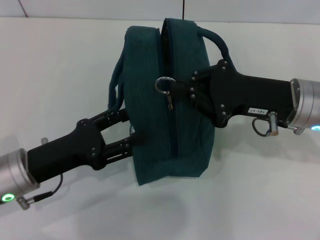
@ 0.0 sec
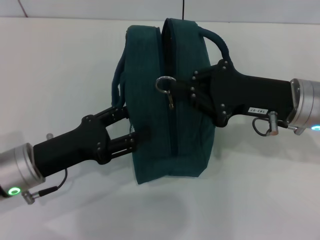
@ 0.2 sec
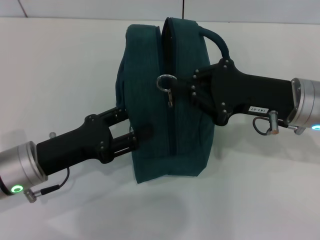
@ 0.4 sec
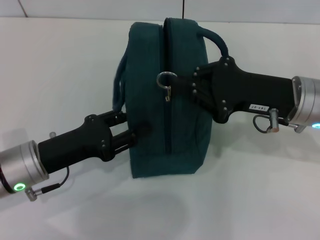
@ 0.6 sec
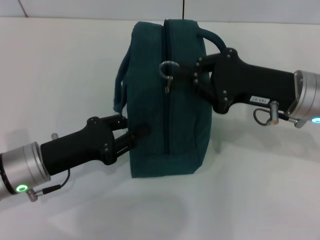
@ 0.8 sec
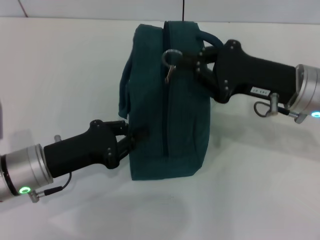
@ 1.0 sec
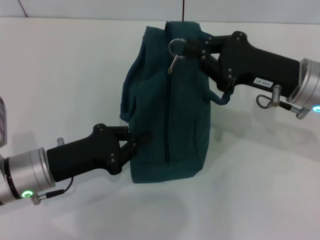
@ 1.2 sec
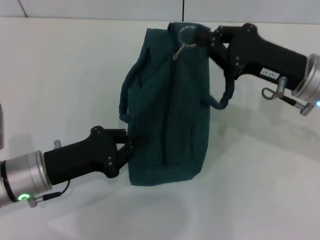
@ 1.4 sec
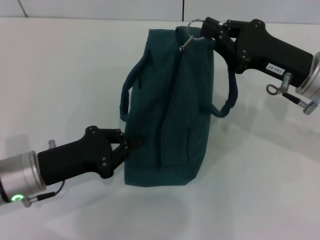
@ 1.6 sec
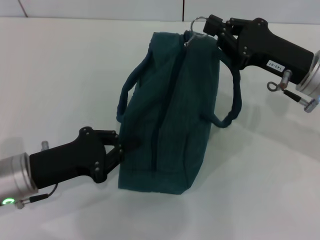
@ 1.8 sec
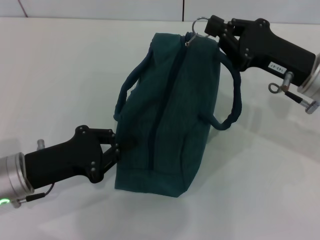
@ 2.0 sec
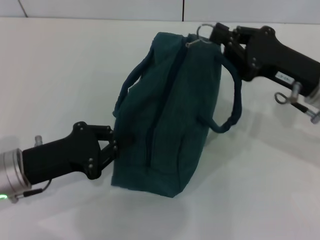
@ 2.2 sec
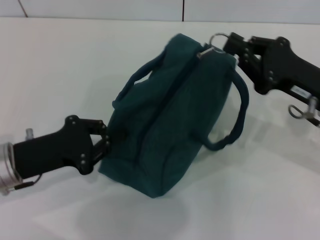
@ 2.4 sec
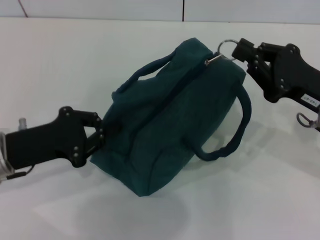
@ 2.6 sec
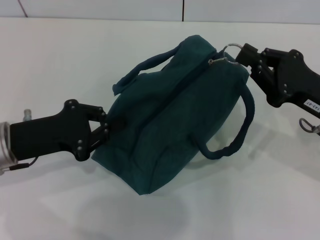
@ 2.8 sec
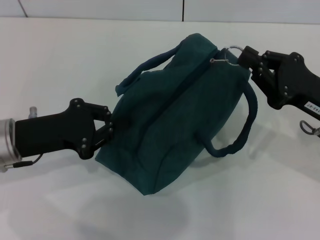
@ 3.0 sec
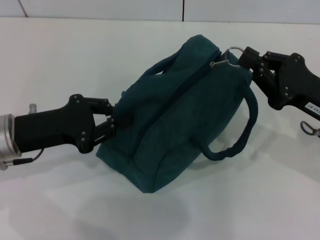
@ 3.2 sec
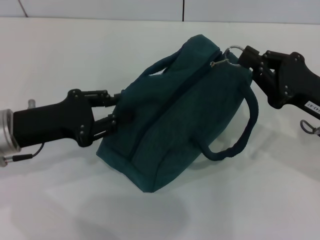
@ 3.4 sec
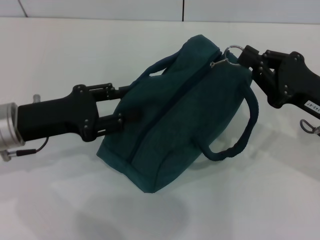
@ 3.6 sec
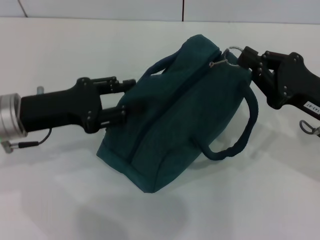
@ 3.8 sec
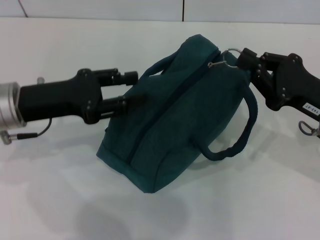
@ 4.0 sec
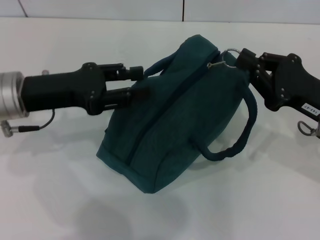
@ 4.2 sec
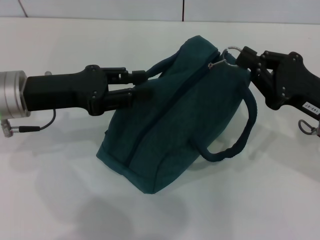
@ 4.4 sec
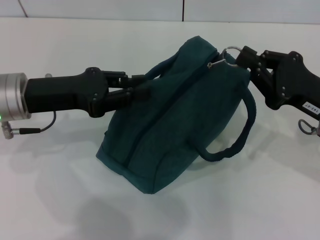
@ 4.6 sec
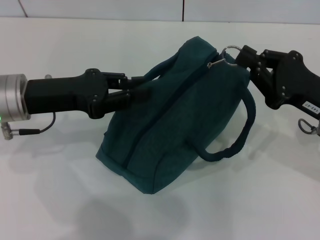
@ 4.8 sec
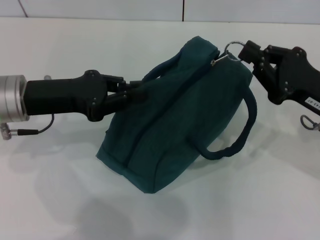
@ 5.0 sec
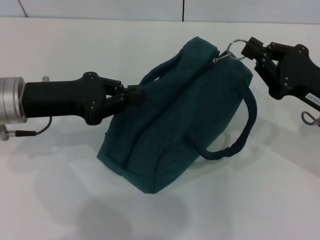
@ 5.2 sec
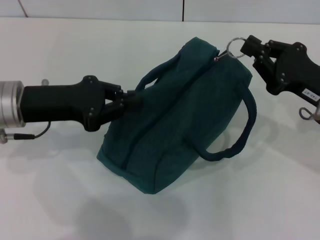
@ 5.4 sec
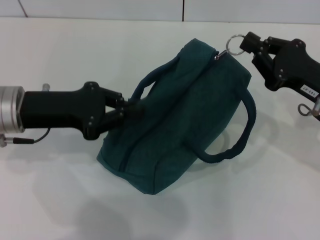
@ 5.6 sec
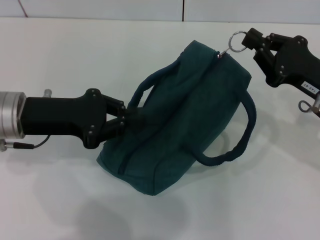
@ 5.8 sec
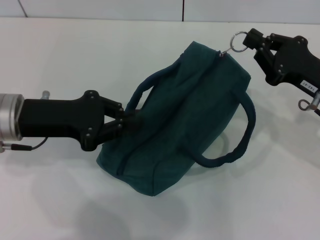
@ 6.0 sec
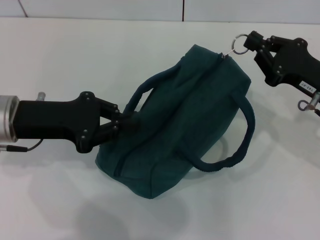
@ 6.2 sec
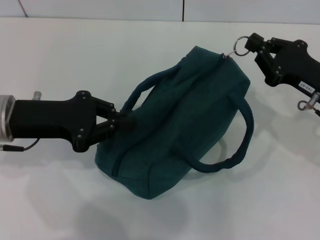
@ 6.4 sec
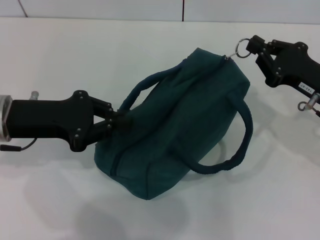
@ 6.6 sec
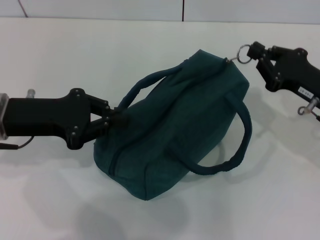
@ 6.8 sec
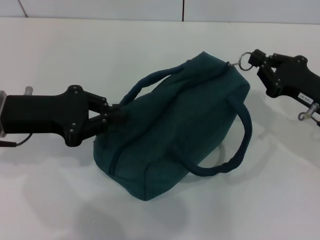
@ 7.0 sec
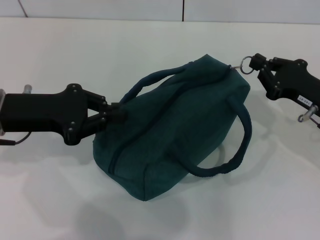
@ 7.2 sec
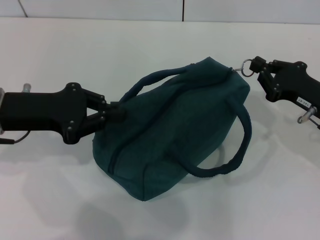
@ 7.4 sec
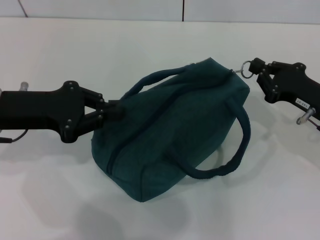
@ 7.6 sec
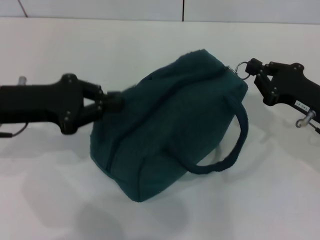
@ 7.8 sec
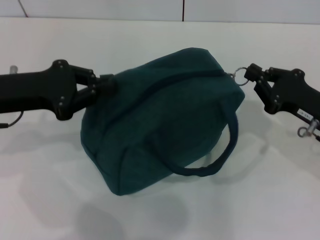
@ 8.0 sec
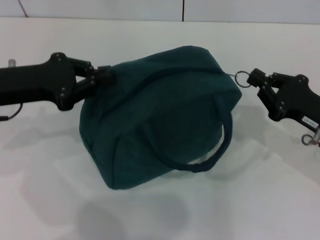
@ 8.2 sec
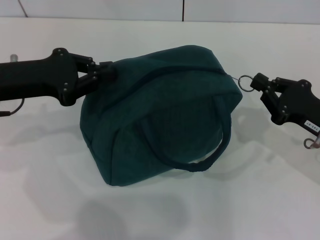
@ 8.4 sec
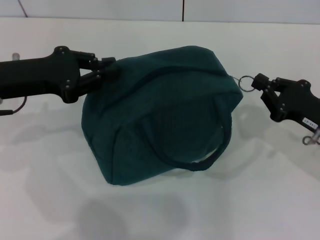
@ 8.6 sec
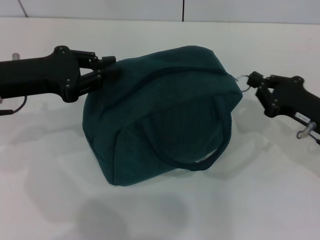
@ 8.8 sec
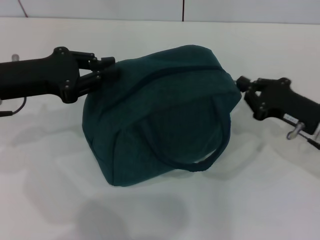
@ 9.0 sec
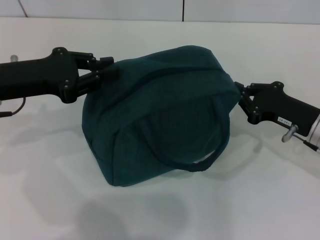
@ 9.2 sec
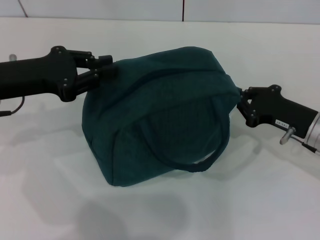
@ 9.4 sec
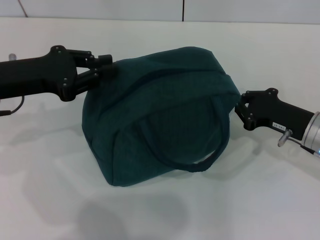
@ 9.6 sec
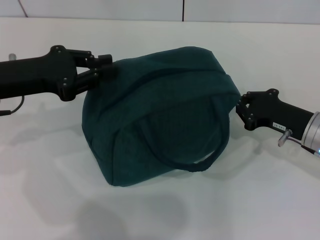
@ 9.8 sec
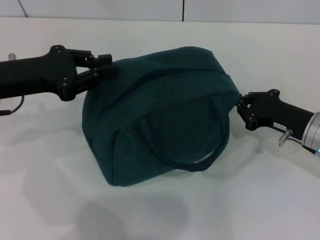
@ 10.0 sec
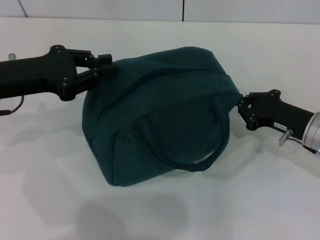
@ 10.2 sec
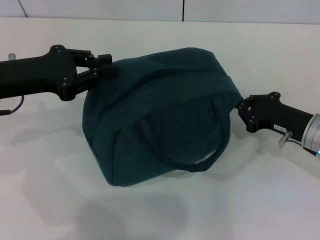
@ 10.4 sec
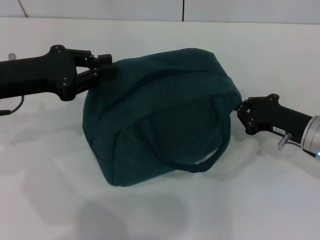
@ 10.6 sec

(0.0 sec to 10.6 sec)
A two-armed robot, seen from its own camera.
0.0 sec - 1.6 sec: The left gripper closes its fingers.
1.6 sec - 3.0 sec: The right gripper shifts by approximately 5 cm. Meanwhile the left gripper ends up some 5 cm from where it was.
3.0 sec - 4.6 sec: The left gripper ends up some 5 cm from where it was, and opens up.
4.6 sec - 6.0 sec: The left gripper closes up.
6.0 sec - 7.6 sec: The grippers make only small movements.
9.0 sec - 10.6 sec: There are only small adjustments of the grippers.

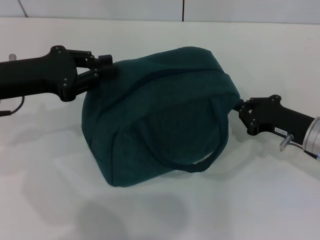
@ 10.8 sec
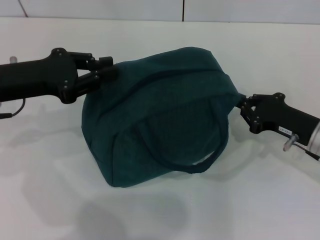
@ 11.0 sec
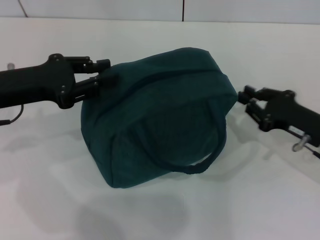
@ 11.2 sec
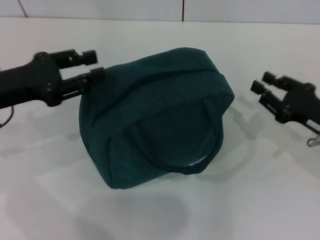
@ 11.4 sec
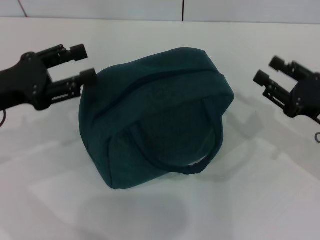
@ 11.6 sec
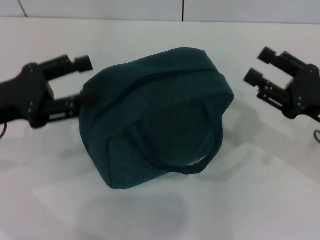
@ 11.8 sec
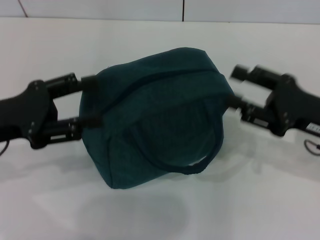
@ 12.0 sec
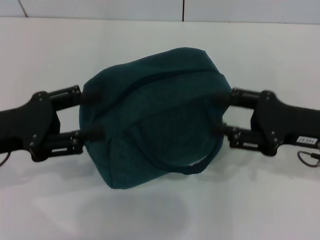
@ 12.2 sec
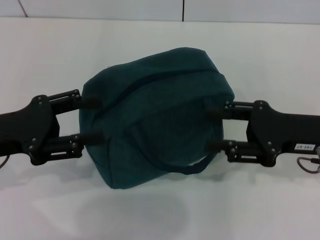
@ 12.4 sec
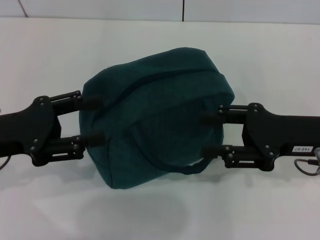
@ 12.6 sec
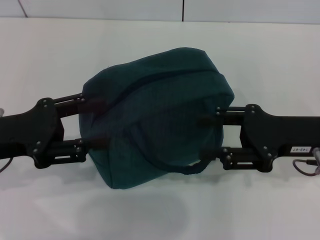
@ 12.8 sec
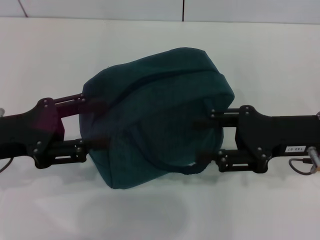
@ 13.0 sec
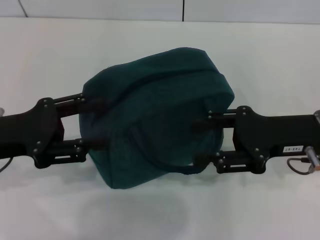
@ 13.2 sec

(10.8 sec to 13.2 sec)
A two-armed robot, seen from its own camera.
Step, 11.2 sec - 11.6 sec: Hold the lunch bag with your left hand.
10.8 sec - 12.0 sec: The right gripper heads upward, covering approximately 5 cm, and opens up. Meanwhile the left gripper travels backward by about 5 cm, and opens.
